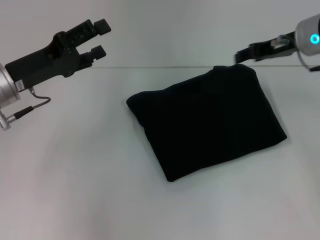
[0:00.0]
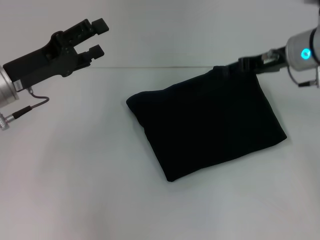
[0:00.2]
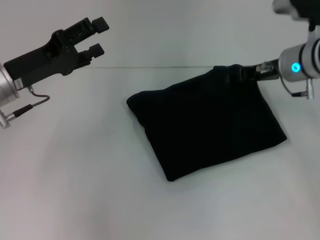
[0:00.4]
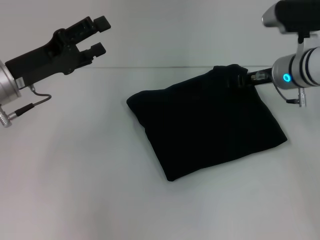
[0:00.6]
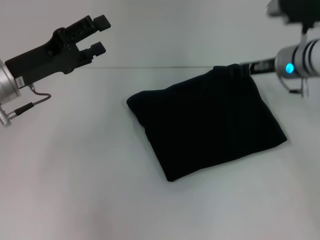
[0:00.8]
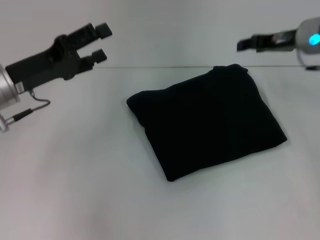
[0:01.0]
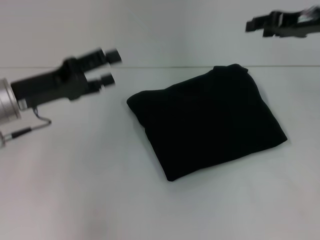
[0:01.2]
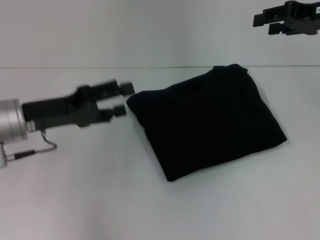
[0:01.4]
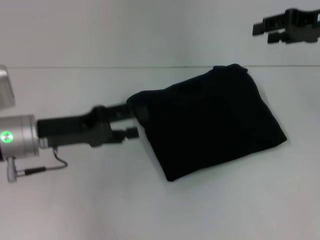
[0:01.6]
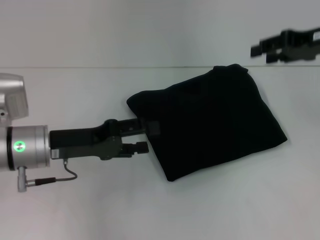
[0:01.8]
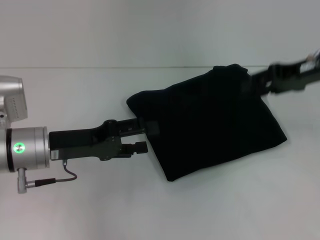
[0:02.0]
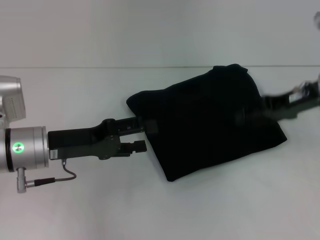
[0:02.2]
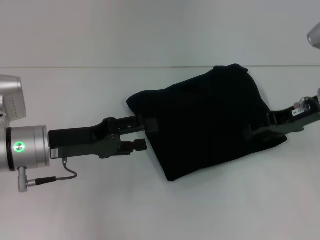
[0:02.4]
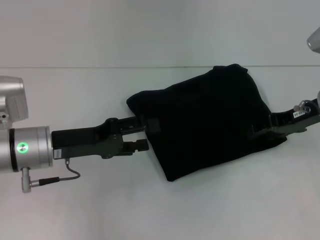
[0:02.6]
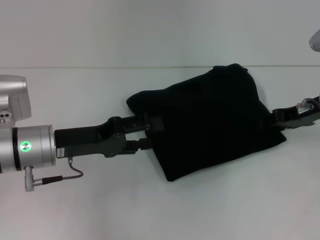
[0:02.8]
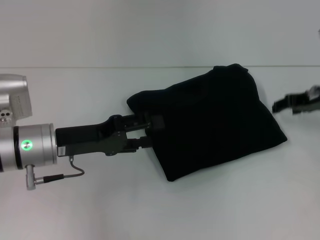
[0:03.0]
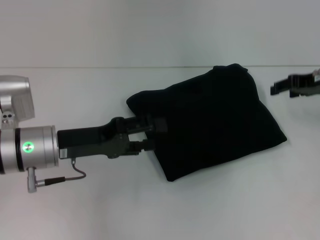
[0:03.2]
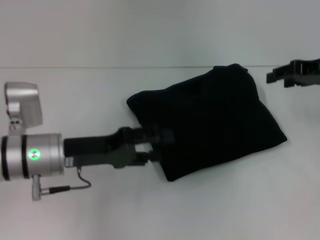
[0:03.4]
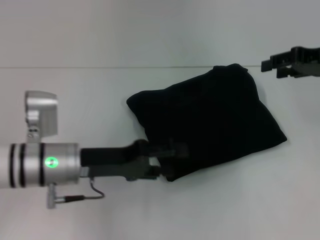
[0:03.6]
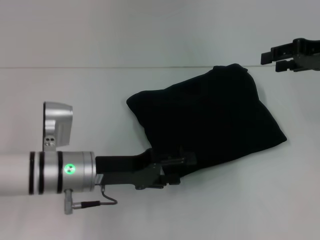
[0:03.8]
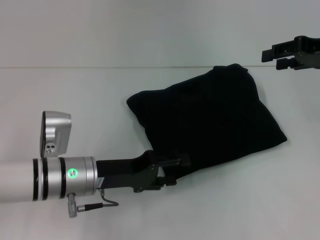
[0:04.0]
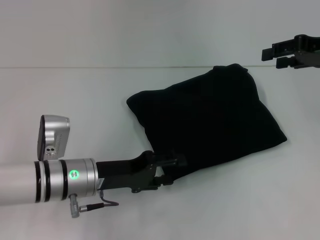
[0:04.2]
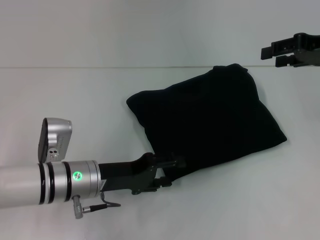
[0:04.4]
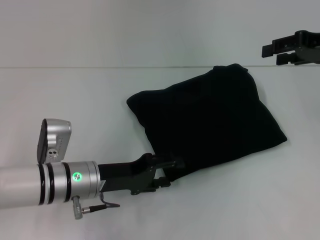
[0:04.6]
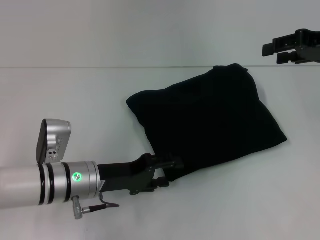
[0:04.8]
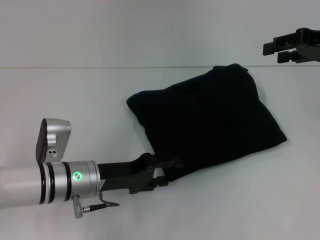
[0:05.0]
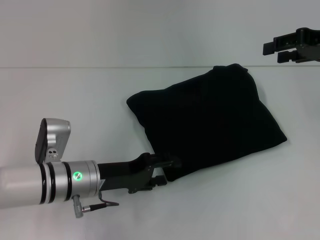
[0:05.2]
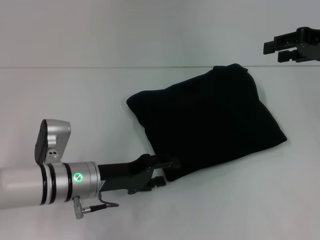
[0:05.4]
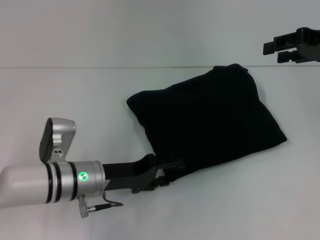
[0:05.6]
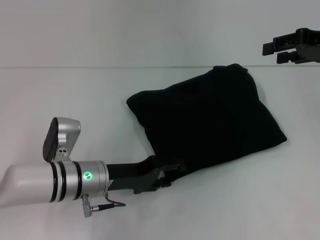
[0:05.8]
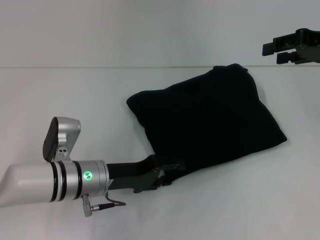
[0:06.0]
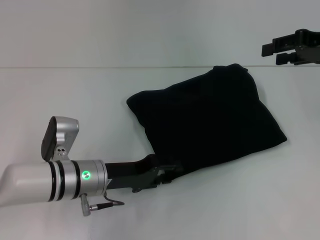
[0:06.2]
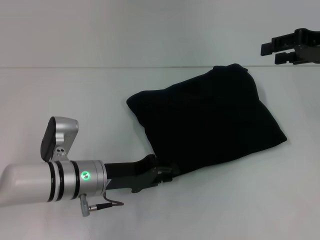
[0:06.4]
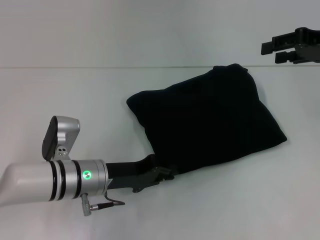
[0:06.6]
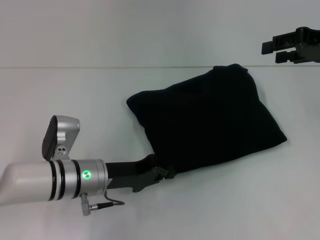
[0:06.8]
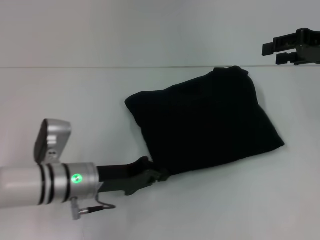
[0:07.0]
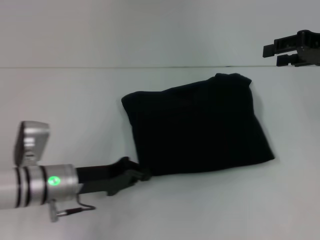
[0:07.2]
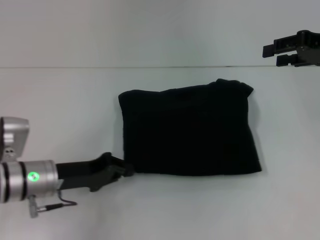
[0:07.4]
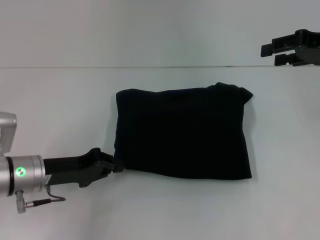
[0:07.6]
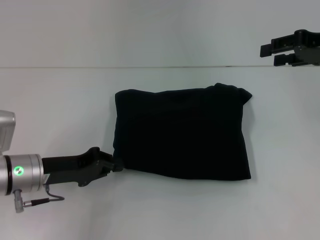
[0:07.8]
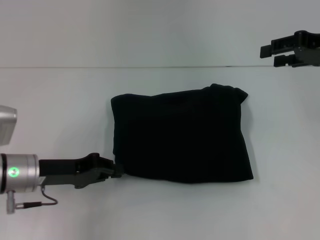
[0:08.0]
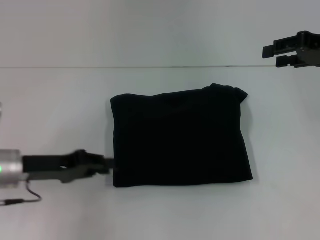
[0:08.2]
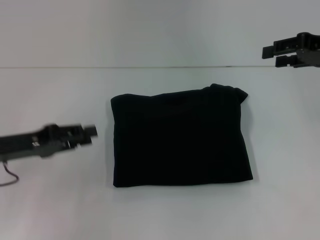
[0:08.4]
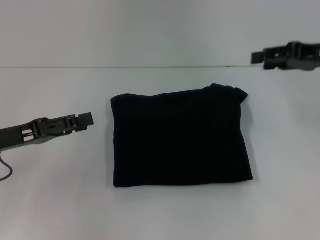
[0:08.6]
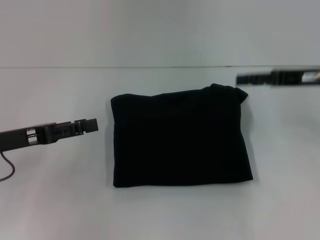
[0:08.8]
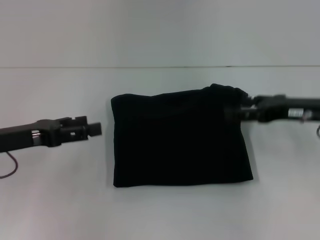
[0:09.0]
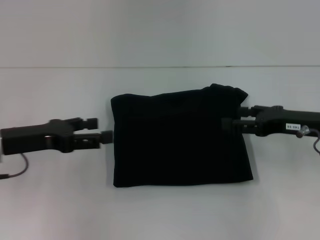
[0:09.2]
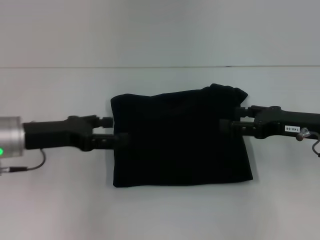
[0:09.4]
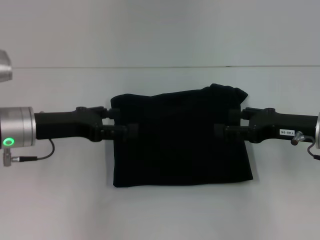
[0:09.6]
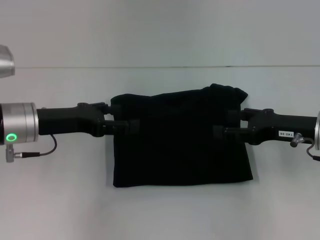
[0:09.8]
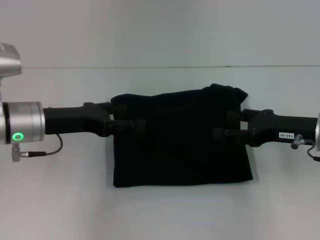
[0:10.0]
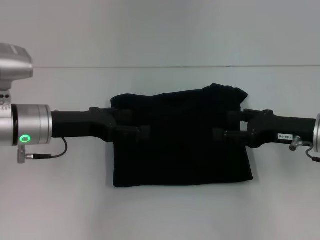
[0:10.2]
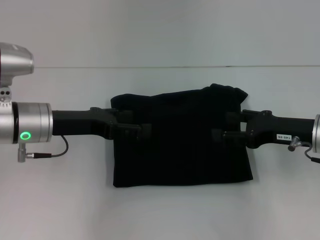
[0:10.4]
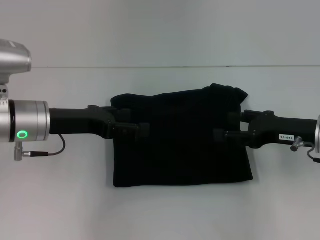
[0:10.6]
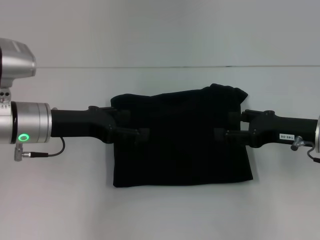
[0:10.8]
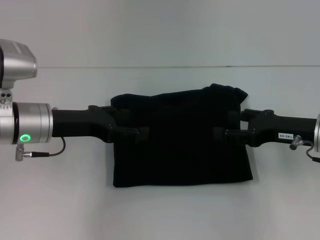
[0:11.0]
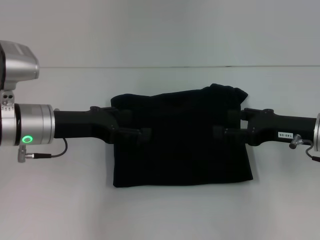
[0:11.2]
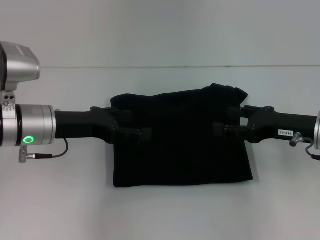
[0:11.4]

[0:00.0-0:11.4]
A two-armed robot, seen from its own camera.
0:00.0 to 0:01.4: The right gripper heads to the right, covering about 5 cm.
0:01.4 to 0:02.8: The right gripper travels downward by about 10 cm.
0:02.8 to 0:04.2: The right gripper is displaced upward by roughly 10 cm. The left gripper is displaced downward by approximately 5 cm.
0:04.2 to 0:05.6: The grippers move only a little.
0:05.6 to 0:07.2: The left gripper closes.
0:07.2 to 0:08.6: The left gripper travels to the left and upward by approximately 15 cm, and opens its fingers.
0:08.6 to 0:10.0: The right gripper moves downward and backward, some 10 cm. The left gripper is displaced to the right and forward by roughly 10 cm, and opens.
0:10.0 to 0:11.4: The grippers stay close to where they were, moving slightly.

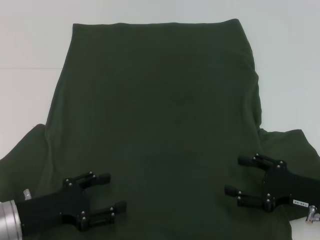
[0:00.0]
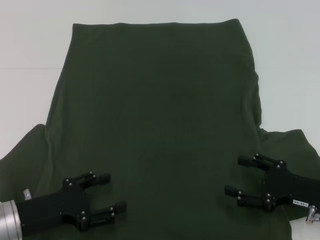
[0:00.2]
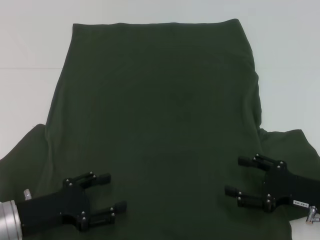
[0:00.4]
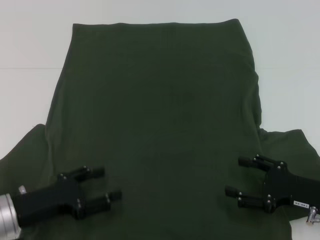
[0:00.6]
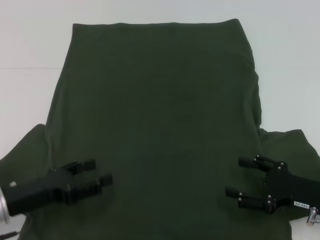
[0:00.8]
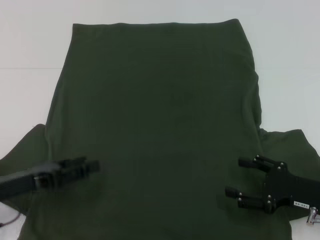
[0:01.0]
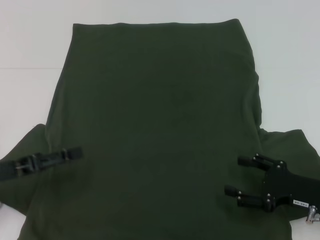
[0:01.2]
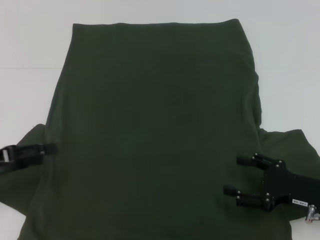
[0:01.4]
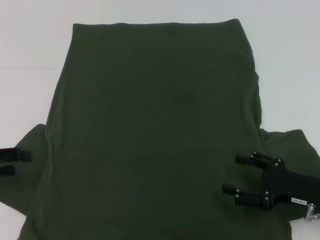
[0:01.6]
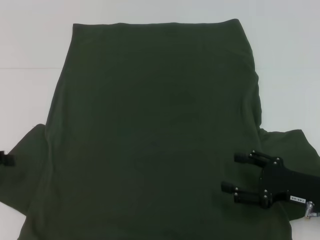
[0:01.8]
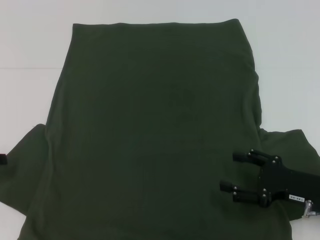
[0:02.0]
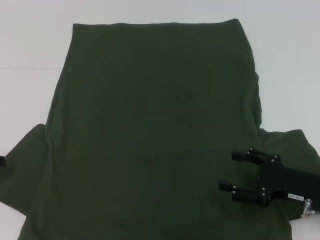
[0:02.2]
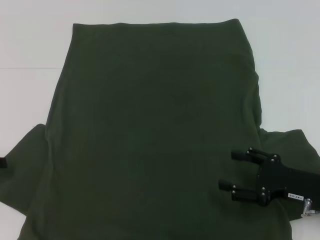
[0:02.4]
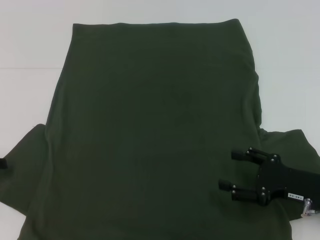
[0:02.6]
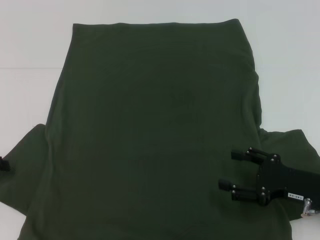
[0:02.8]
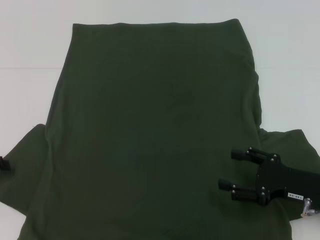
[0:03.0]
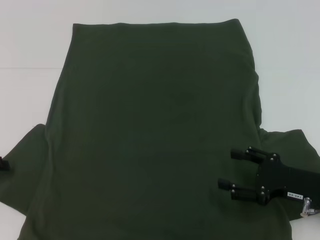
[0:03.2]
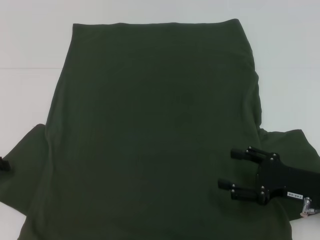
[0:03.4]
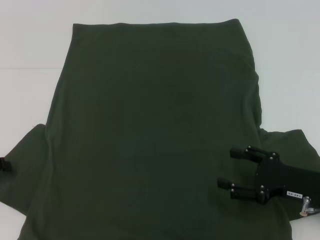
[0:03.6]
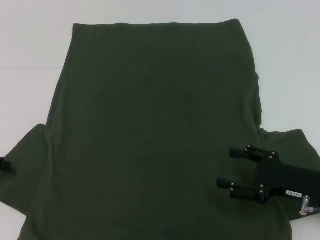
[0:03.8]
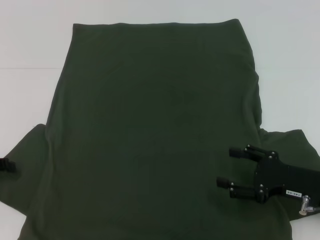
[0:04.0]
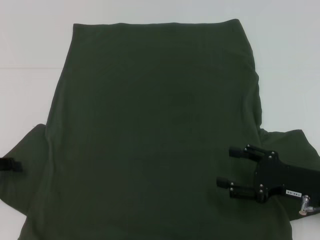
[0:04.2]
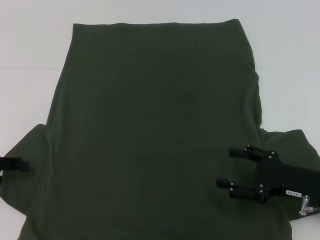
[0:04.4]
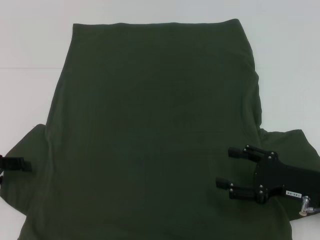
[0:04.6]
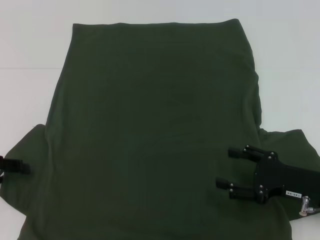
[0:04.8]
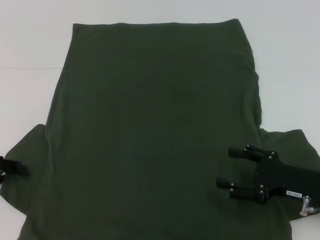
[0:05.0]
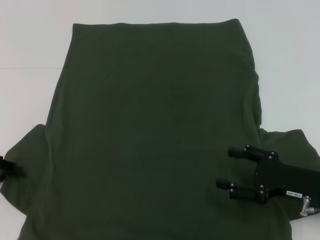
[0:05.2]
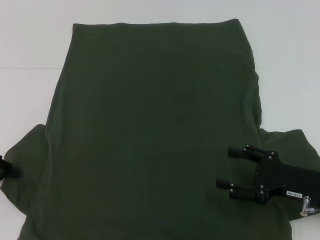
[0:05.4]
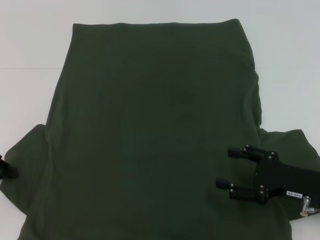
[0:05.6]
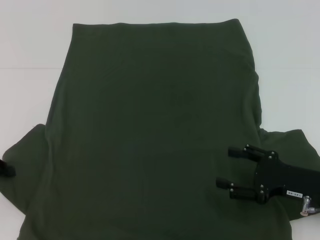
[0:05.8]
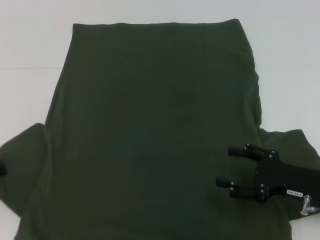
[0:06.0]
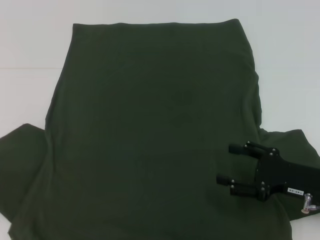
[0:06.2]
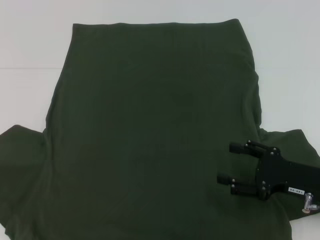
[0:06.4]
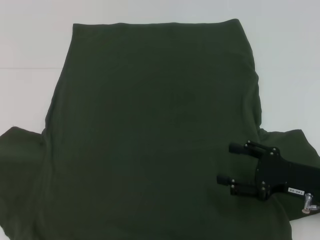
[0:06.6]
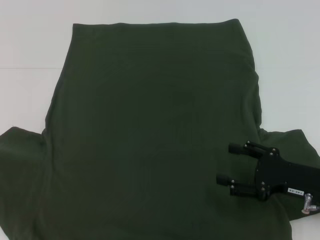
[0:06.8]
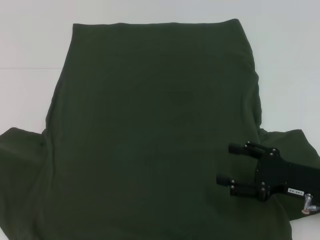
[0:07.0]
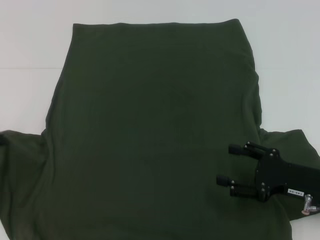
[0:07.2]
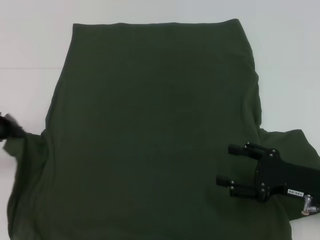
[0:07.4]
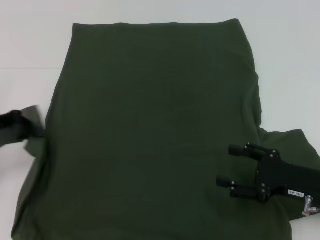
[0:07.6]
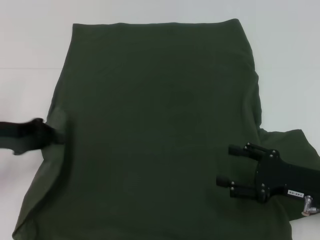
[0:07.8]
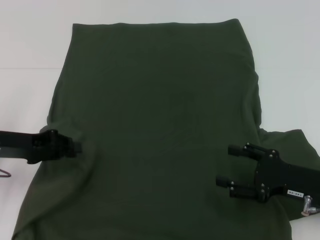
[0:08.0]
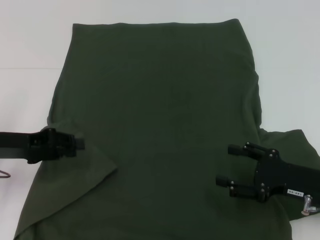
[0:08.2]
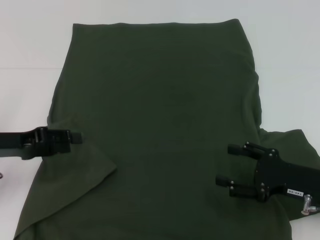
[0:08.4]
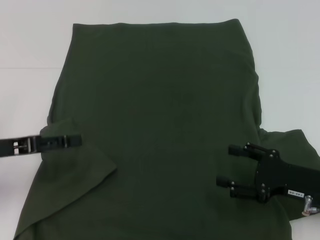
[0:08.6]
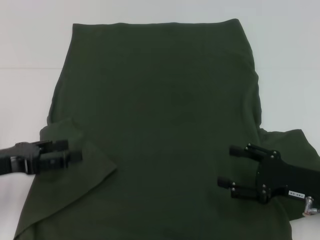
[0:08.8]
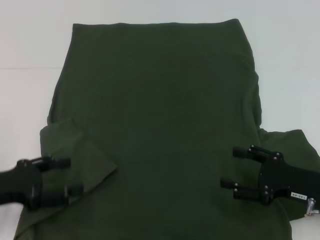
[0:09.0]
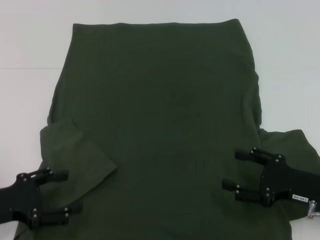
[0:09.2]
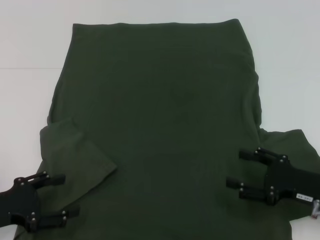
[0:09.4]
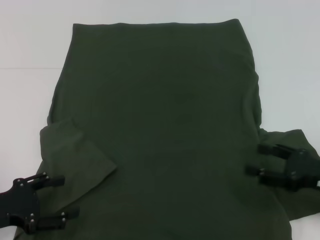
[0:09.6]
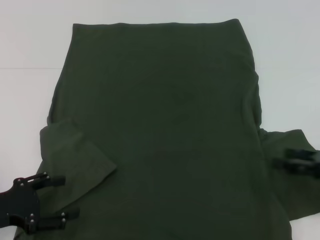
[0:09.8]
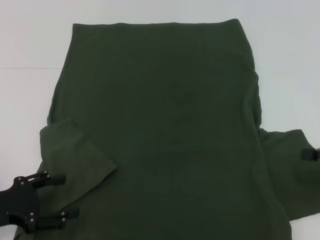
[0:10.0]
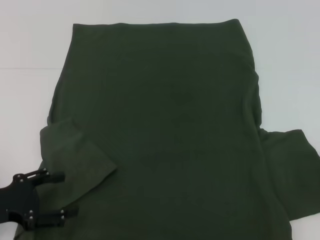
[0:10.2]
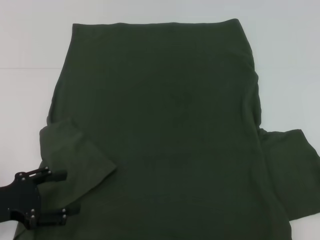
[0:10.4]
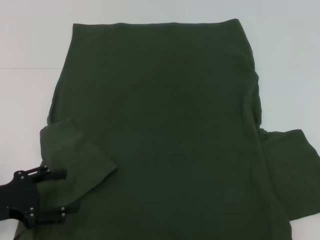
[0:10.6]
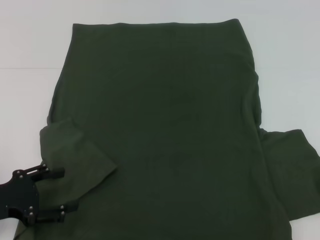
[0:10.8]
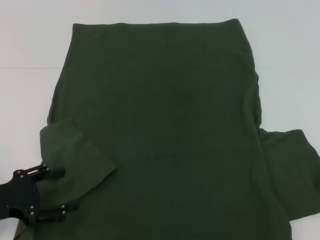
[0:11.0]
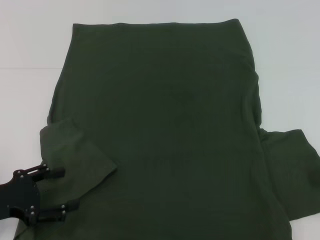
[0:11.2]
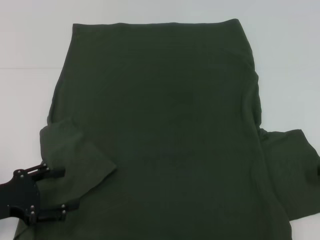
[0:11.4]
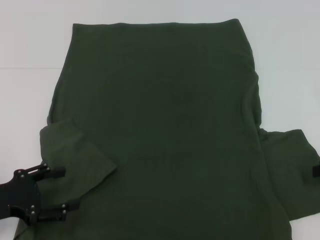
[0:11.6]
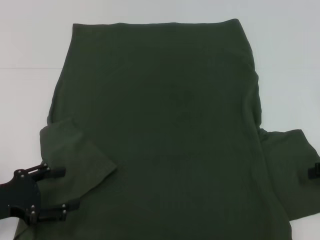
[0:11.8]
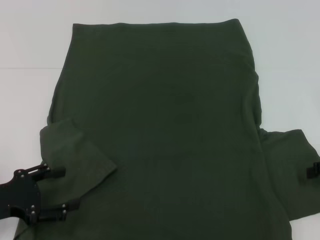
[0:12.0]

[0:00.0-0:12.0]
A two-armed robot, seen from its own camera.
Step, 0:00.0 to 0:08.0: Fold the bottom left sleeve with your left hand.
0:00.0 to 0:01.6: The left gripper travels to the left and upward by about 15 cm.
0:01.6 to 0:04.4: The grippers stay close to where they were, moving slightly.
0:04.4 to 0:06.0: The left gripper closes up.
0:06.0 to 0:07.6: The left gripper travels upward by roughly 5 cm.
0:07.6 to 0:09.0: The left gripper moves backward and downward, approximately 10 cm, and opens its fingers.
0:09.0 to 0:10.4: The right gripper goes about 20 cm to the right and upward.
